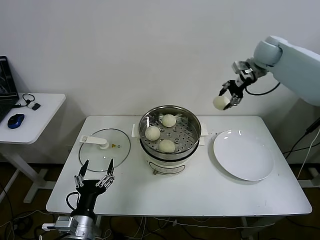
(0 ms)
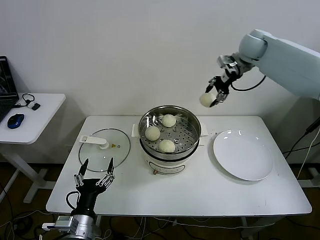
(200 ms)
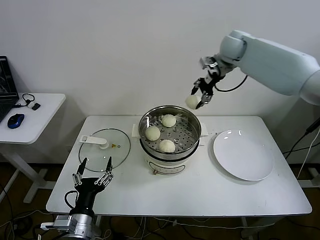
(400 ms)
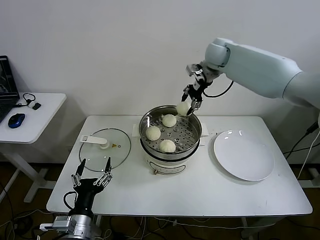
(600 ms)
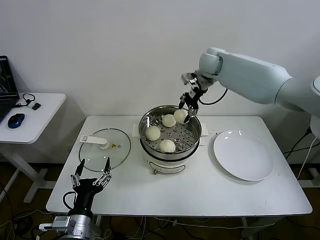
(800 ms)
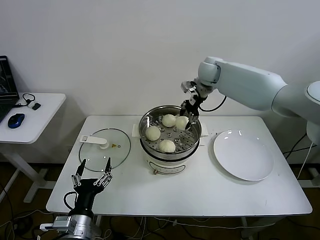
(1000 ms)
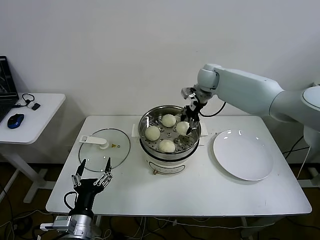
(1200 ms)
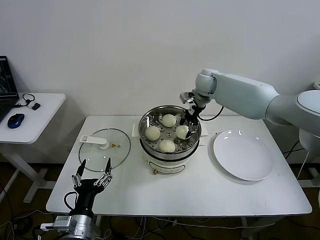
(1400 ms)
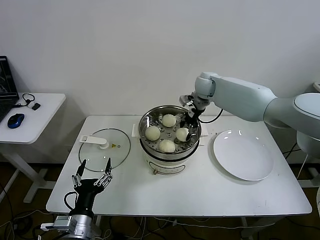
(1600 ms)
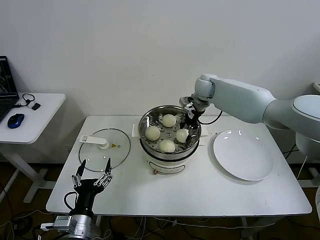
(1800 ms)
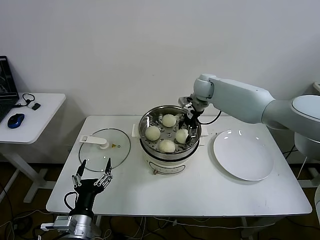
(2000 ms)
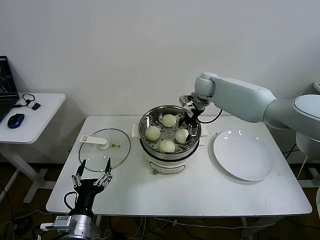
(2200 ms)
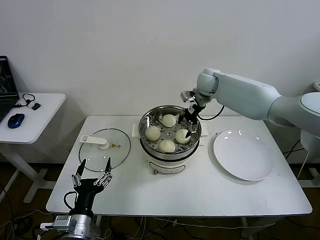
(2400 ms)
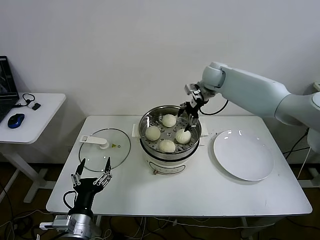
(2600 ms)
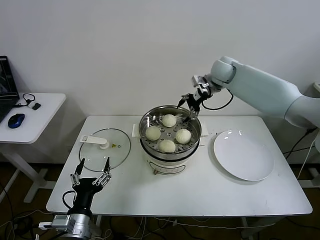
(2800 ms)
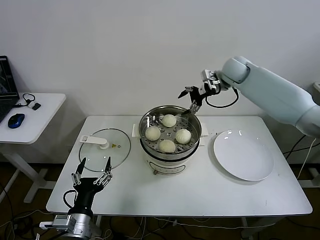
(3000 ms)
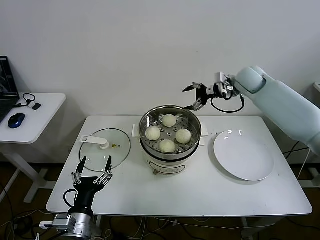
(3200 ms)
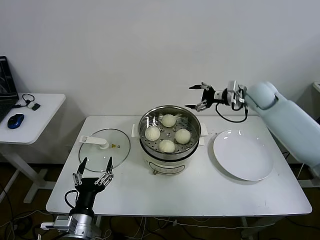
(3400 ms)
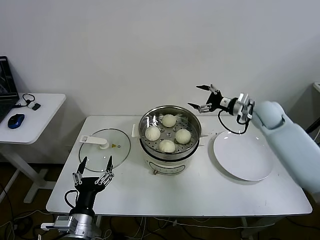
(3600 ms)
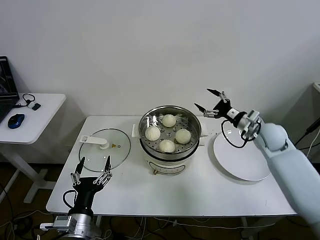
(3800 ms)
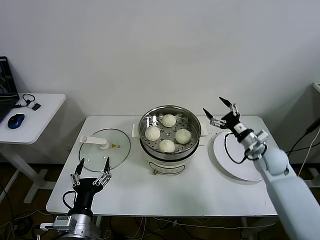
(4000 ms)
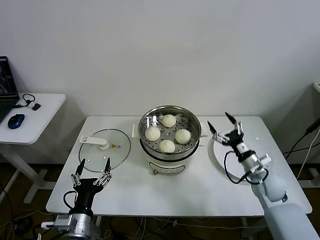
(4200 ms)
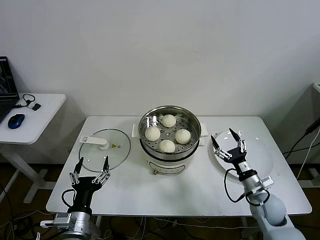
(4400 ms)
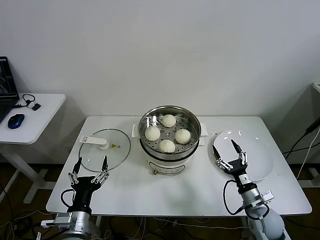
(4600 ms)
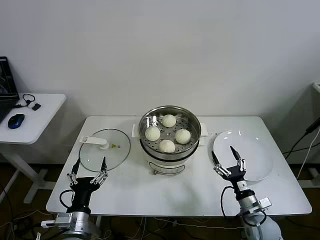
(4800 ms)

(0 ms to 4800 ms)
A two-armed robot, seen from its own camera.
Step, 0 ms - 2200 ms: Place the baozi on the steamer with right gripper.
0 ms - 1600 ms: The right gripper travels to the left and downward by approximately 20 cm.
1600 ms - 3200 ms: The right gripper goes some 10 cm to the right, and opens.
3200 ms - 4800 ms: The right gripper goes approximately 50 cm backward and downward.

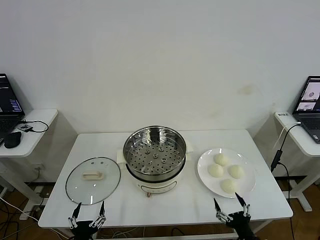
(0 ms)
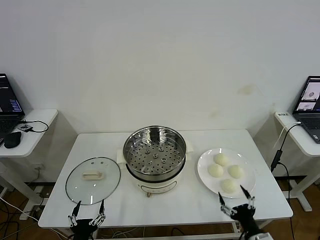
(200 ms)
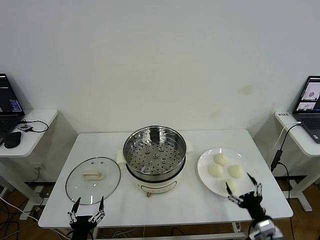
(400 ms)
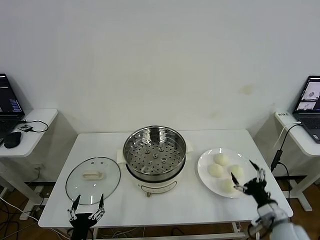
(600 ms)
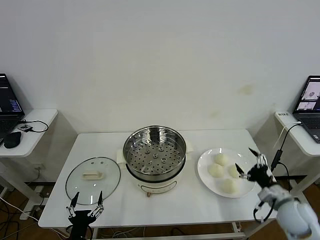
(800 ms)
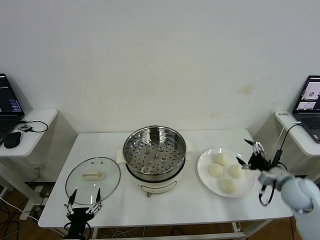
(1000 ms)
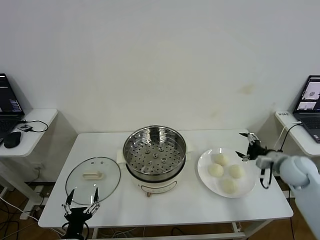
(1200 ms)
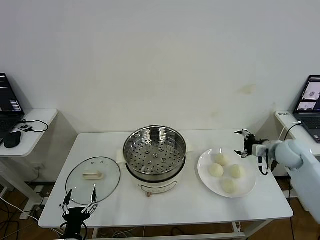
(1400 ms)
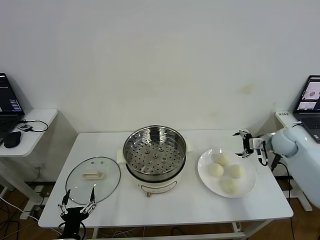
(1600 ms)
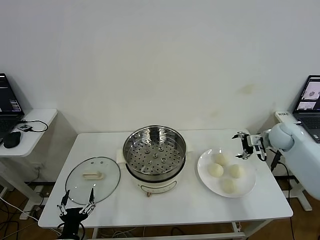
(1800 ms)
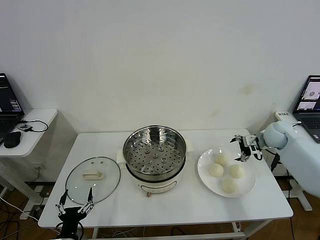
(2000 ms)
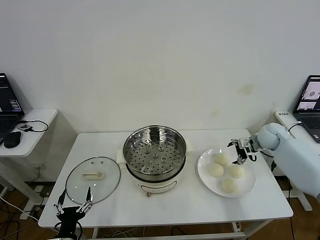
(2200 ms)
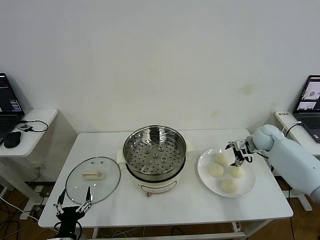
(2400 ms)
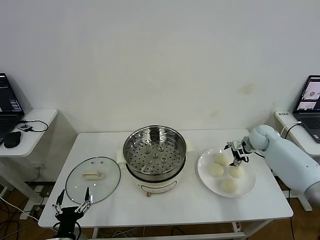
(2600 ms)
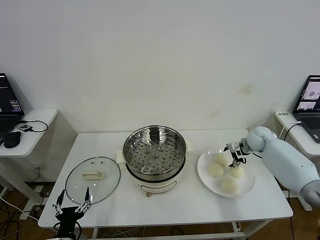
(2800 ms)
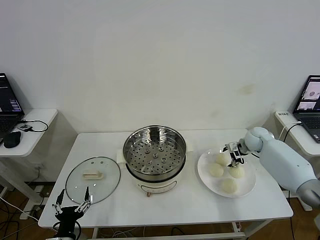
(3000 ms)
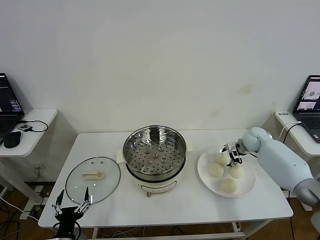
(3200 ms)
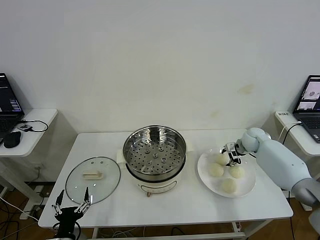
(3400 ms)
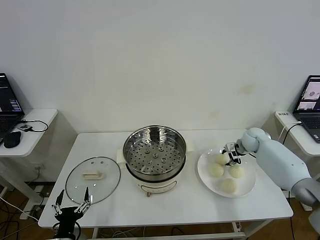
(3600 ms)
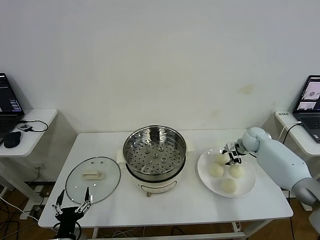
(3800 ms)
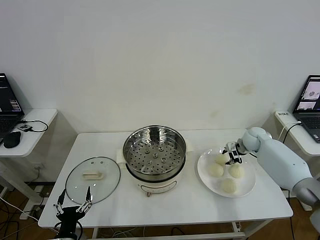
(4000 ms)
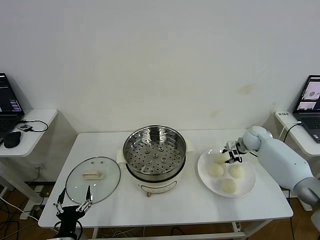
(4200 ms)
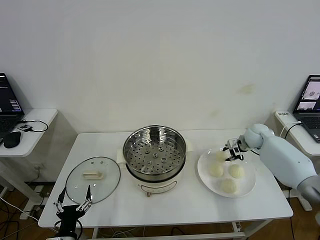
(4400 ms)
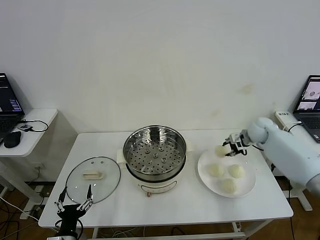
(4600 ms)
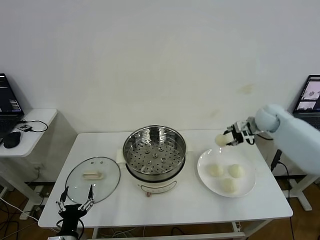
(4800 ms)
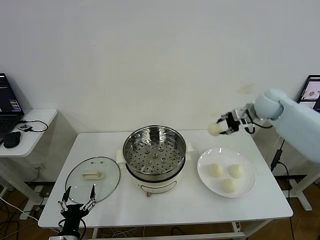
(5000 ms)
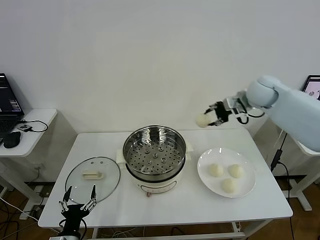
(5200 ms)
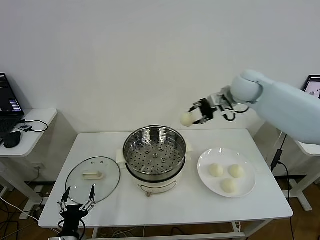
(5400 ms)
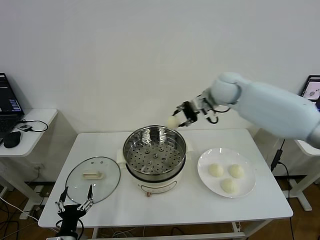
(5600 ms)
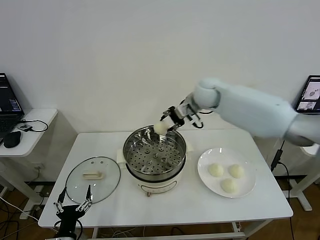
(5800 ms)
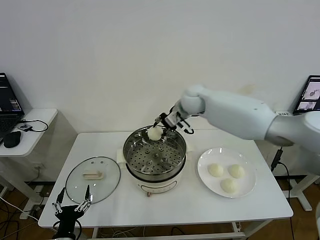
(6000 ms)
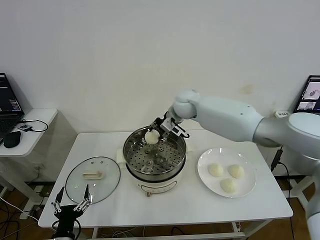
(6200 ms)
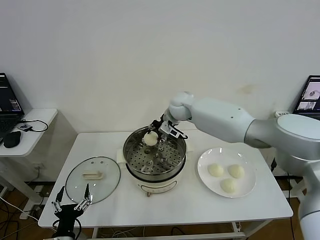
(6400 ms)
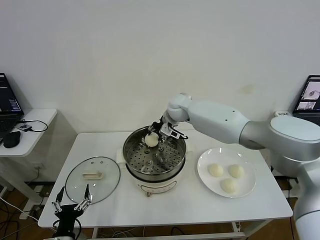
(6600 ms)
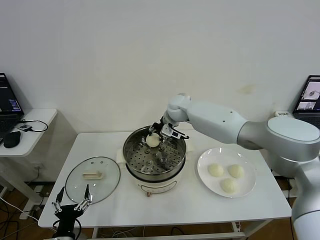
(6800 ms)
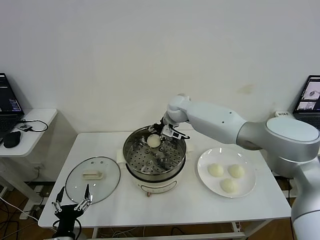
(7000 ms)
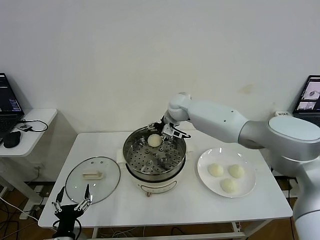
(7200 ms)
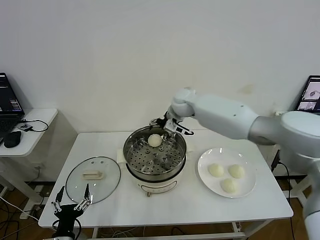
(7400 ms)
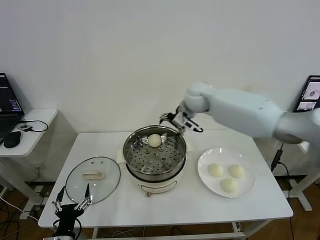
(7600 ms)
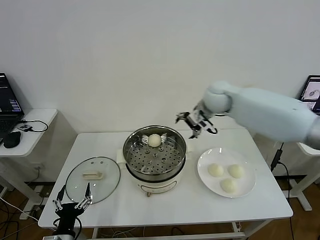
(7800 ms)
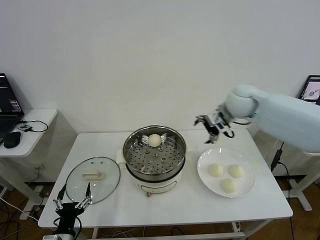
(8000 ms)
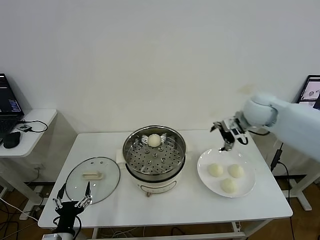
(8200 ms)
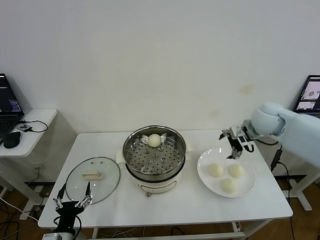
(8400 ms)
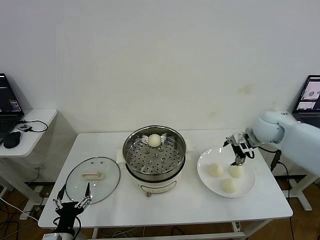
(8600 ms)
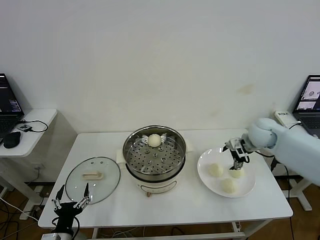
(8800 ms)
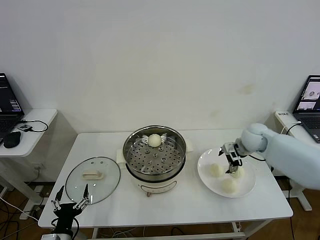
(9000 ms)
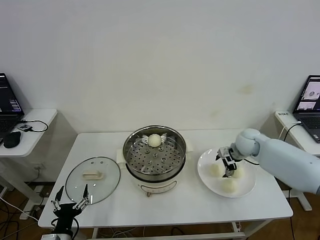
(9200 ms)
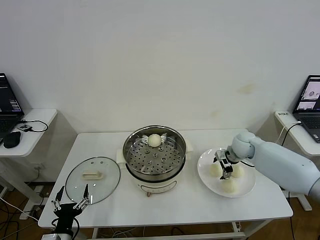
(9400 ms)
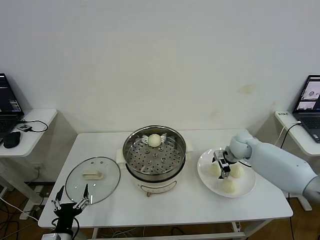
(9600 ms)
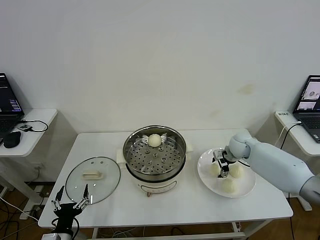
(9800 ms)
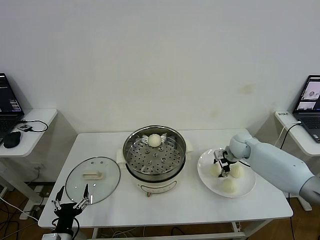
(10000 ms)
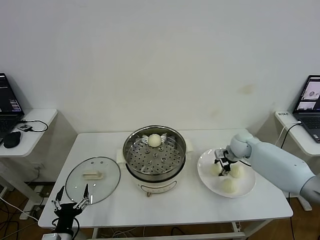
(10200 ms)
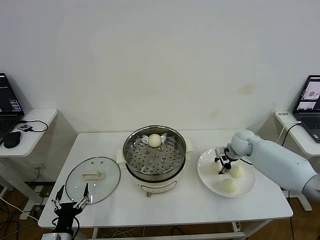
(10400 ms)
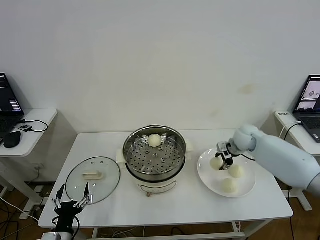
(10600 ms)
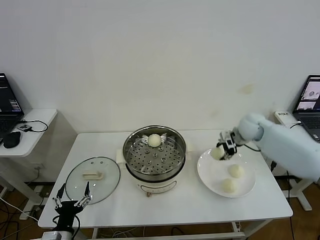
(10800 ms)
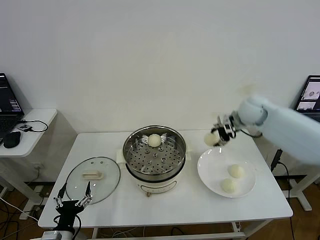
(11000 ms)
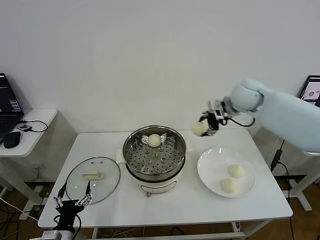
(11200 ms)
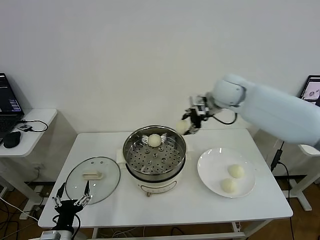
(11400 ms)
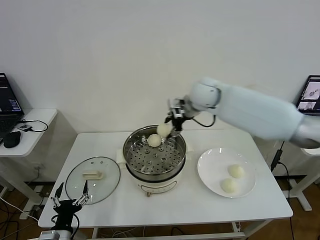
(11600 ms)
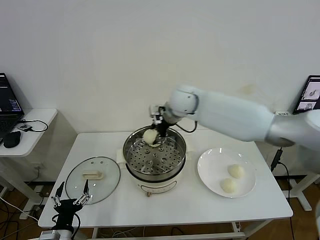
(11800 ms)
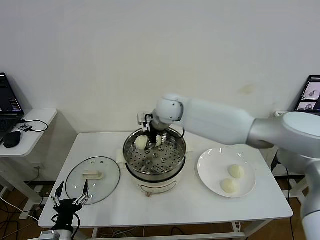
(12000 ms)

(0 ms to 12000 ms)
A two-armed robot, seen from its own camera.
Step, 0 ms - 3600 ms: Grasp the baozi in the plate with right gripper.
Step, 3800 ms - 7000 ms: Place the baozi on the steamer with right gripper.
Step, 7200 ms - 10000 ms: Grasp the baozi in the plate with right gripper.
1600 ms - 3000 ms: The right gripper moves downward, forward and to the left, some 10 cm.
3000 ms - 4400 ms: The right gripper closes up.
4400 ms - 6000 ms: The right gripper travels to the left and upward by some 30 cm.
6000 ms - 7600 ms: The right gripper changes place by about 5 cm, and opens.
7600 ms - 9000 ms: The right gripper travels to the right and downward by some 25 cm.
9000 ms - 10400 ms: The right gripper closes up.
10400 ms - 12000 ms: The right gripper shifts about 35 cm to the left and upward.

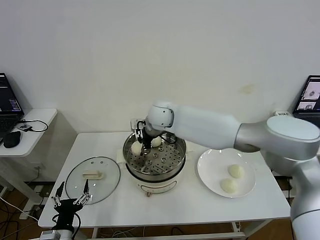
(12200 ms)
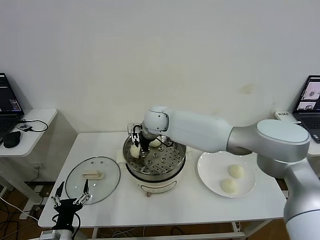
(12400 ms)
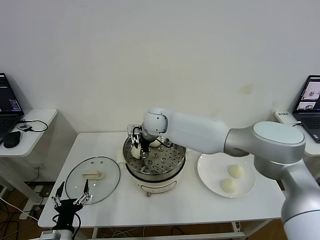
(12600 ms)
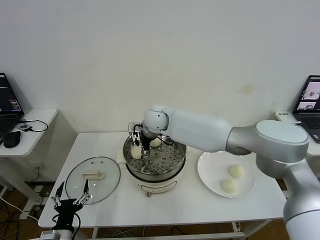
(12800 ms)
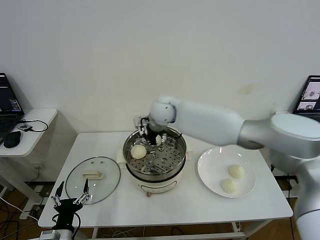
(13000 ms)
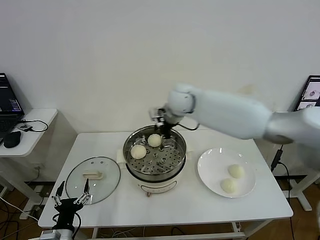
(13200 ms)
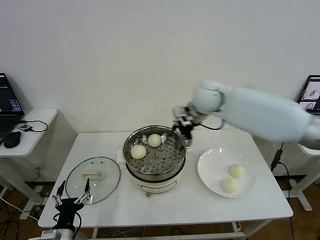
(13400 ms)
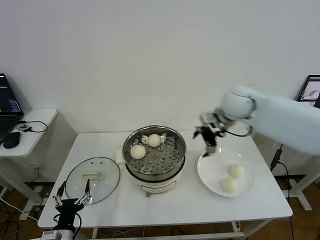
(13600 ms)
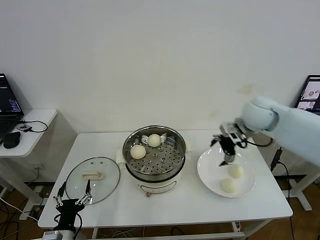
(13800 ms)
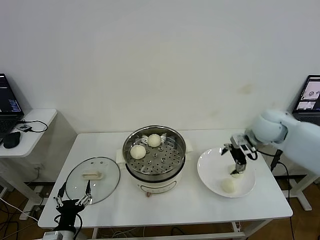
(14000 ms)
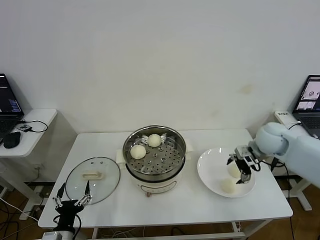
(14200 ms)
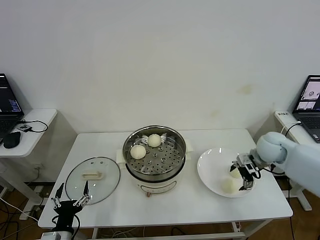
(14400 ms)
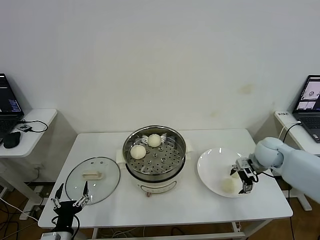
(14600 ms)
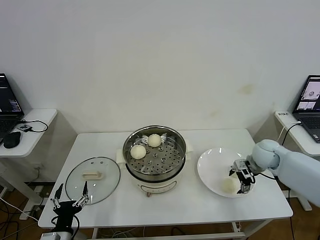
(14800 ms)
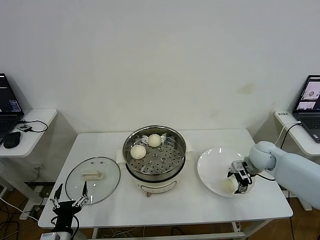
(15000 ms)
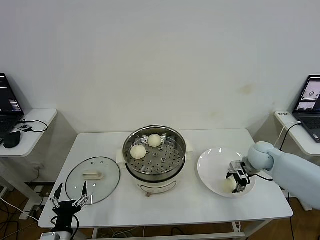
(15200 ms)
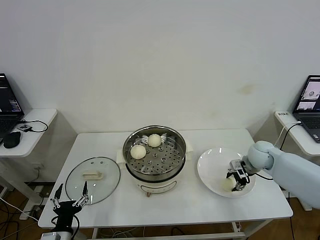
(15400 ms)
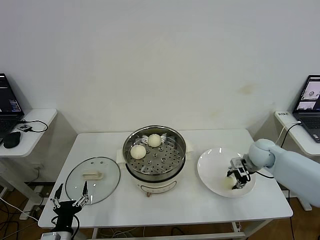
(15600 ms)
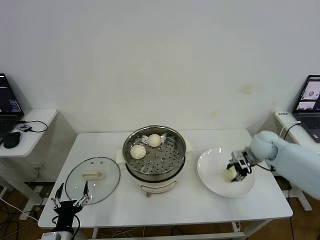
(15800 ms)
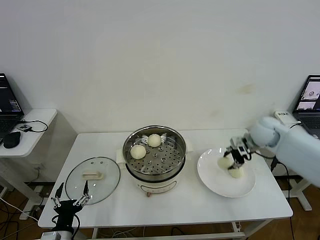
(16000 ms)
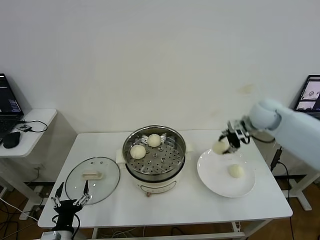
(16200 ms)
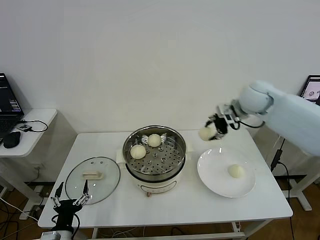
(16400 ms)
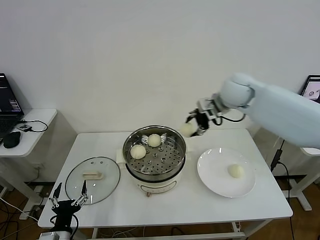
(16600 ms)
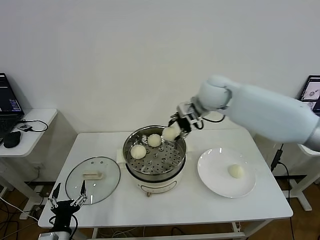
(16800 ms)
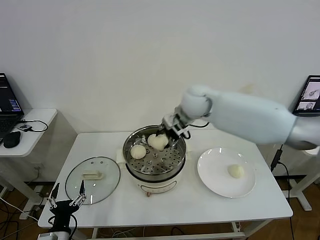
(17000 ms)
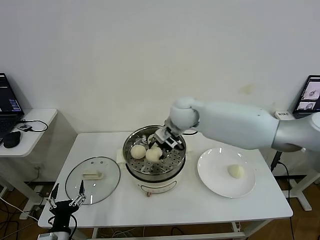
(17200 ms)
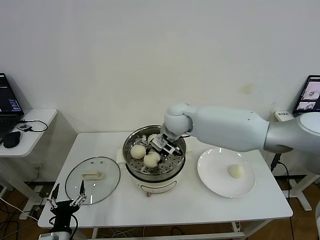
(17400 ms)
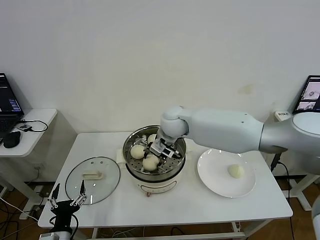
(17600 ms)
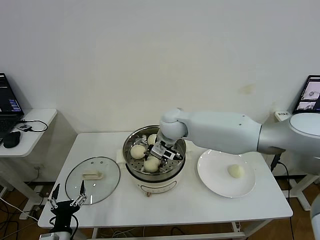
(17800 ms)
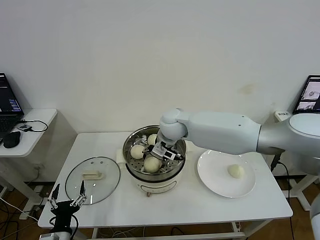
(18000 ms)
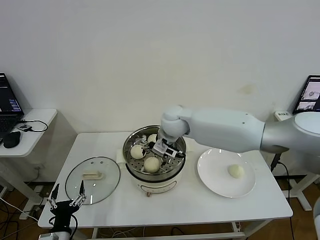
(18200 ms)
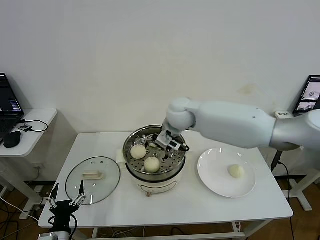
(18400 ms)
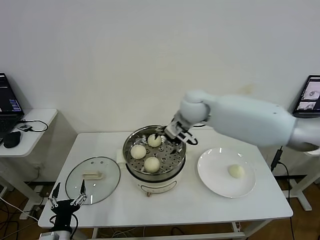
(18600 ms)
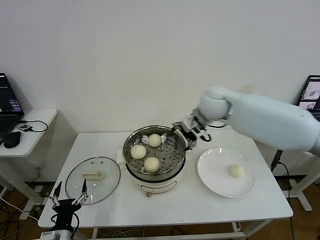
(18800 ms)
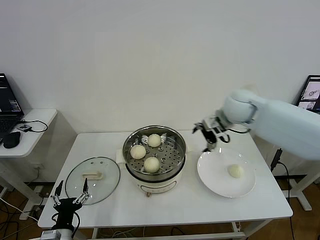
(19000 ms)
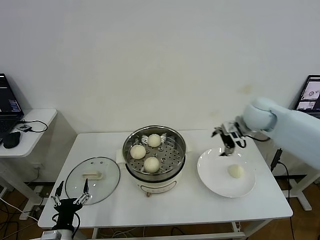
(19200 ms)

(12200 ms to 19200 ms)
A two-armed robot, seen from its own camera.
Step, 12800 ms - 15400 ms: Grasp the baozi in the plate with right gripper.
Step, 15600 ms - 18000 ms: Place the baozi on the steamer with right gripper.
12200 ms - 13600 ms: The right gripper heads to the right, covering roughly 25 cm, and opens its fingers.
13600 ms - 15000 ms: The right gripper heads downward and to the right, covering some 25 cm.
15000 ms - 16400 ms: The right gripper shifts some 25 cm upward and to the left, and closes.
16400 ms - 17800 ms: The right gripper goes about 25 cm to the left.
17800 ms - 19200 ms: The right gripper shifts approximately 25 cm to the right, and opens up.
